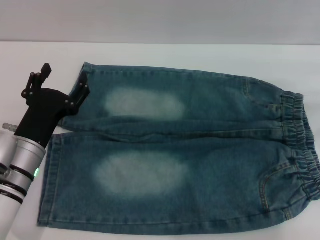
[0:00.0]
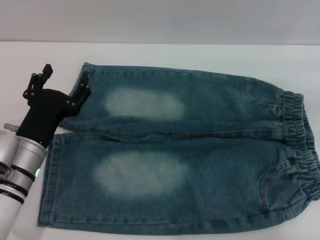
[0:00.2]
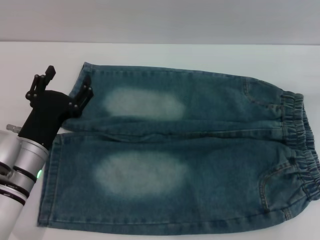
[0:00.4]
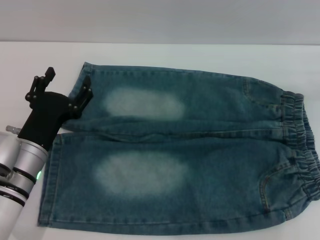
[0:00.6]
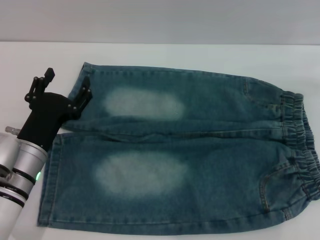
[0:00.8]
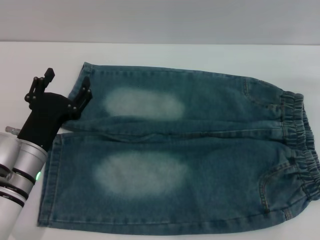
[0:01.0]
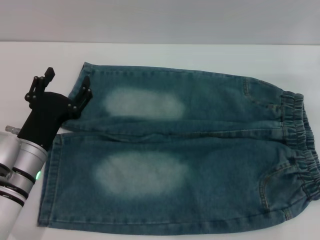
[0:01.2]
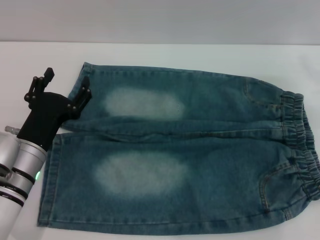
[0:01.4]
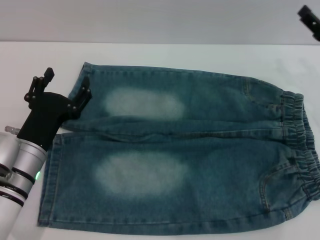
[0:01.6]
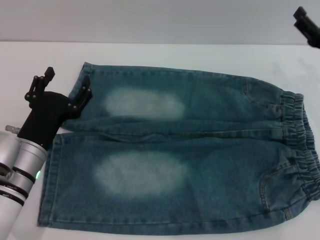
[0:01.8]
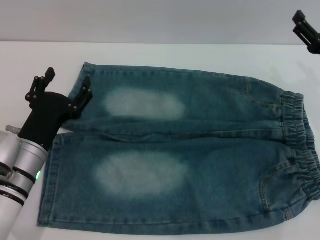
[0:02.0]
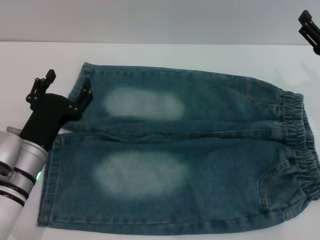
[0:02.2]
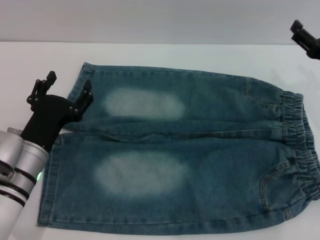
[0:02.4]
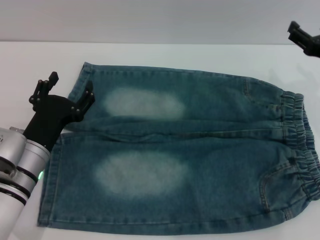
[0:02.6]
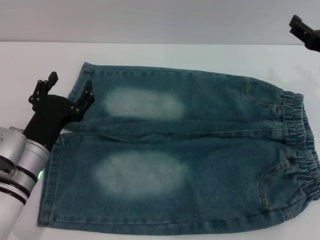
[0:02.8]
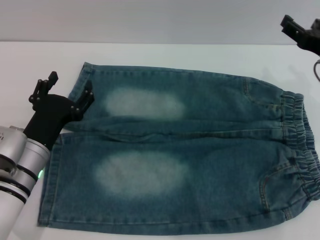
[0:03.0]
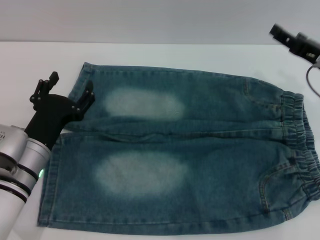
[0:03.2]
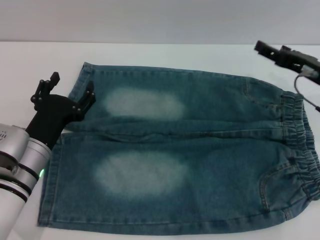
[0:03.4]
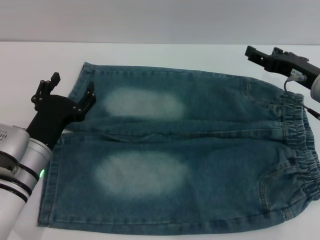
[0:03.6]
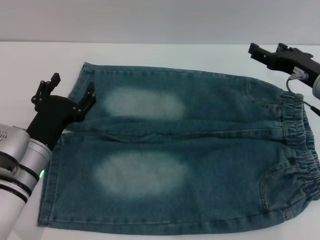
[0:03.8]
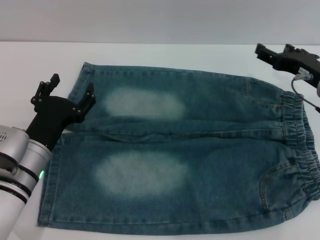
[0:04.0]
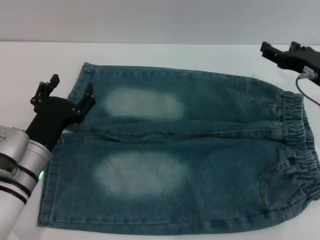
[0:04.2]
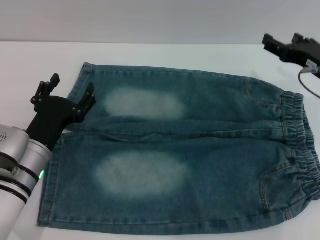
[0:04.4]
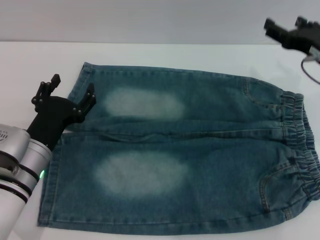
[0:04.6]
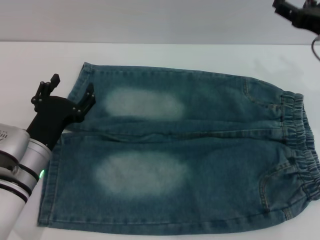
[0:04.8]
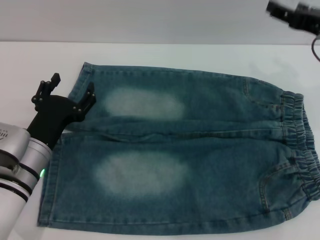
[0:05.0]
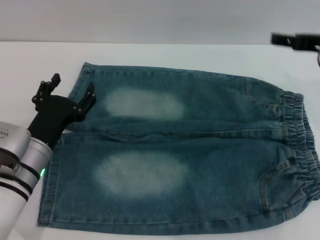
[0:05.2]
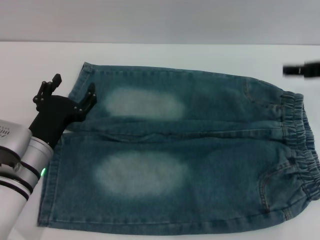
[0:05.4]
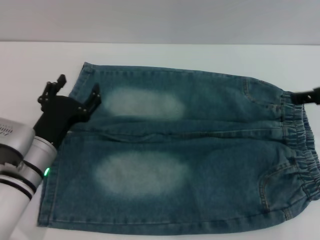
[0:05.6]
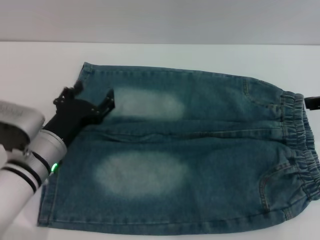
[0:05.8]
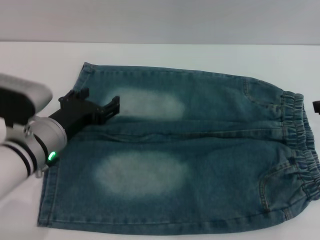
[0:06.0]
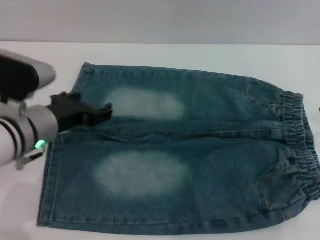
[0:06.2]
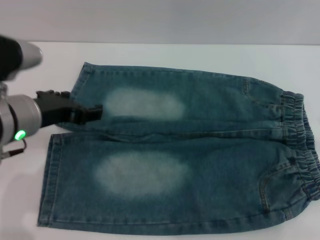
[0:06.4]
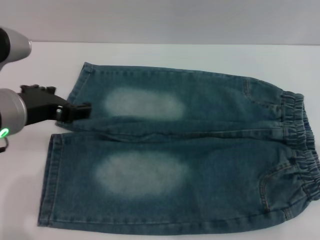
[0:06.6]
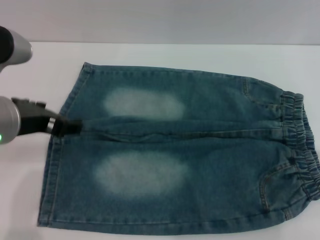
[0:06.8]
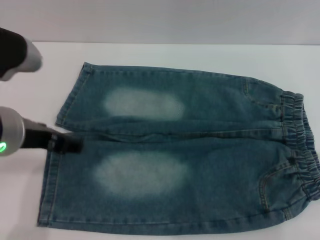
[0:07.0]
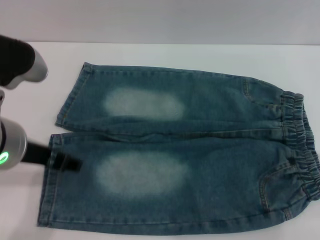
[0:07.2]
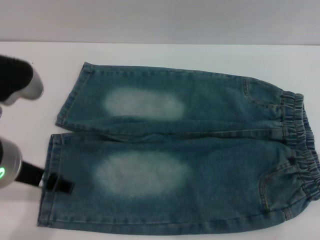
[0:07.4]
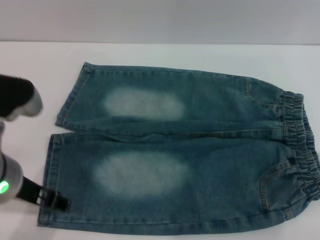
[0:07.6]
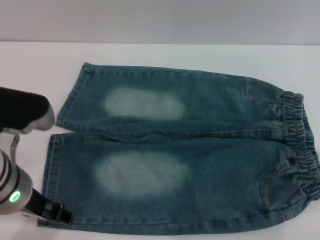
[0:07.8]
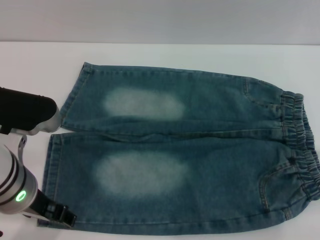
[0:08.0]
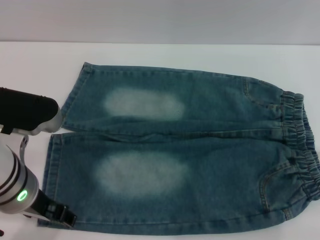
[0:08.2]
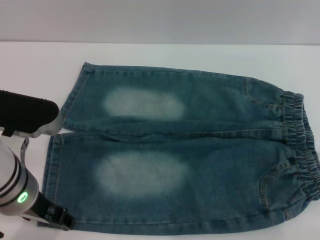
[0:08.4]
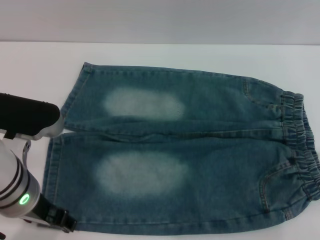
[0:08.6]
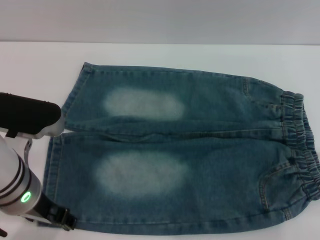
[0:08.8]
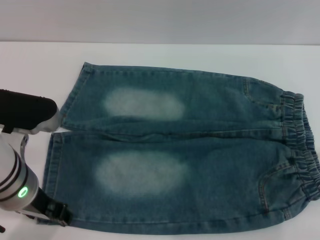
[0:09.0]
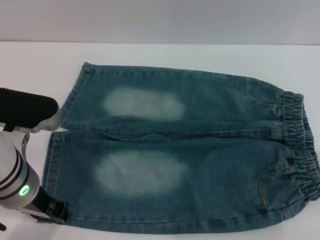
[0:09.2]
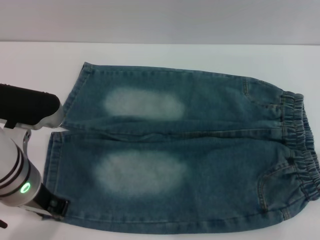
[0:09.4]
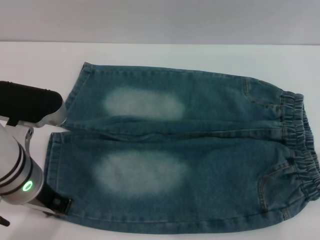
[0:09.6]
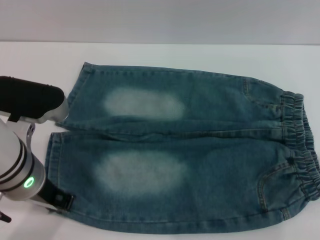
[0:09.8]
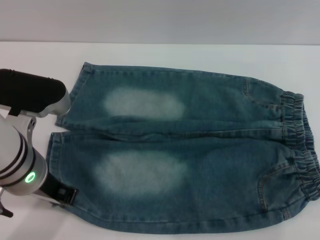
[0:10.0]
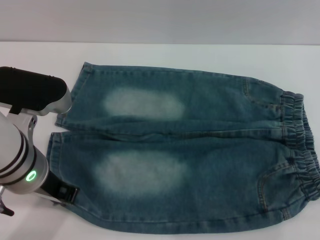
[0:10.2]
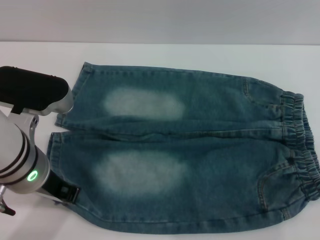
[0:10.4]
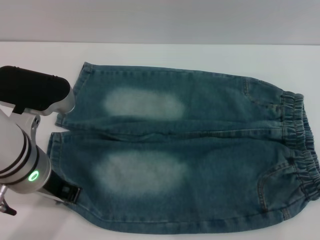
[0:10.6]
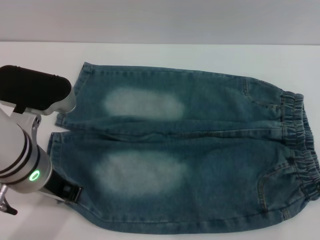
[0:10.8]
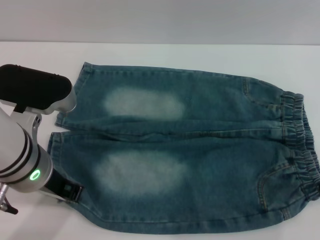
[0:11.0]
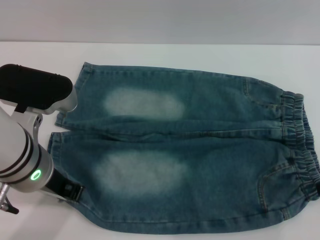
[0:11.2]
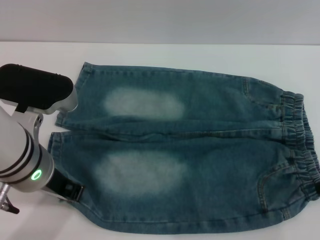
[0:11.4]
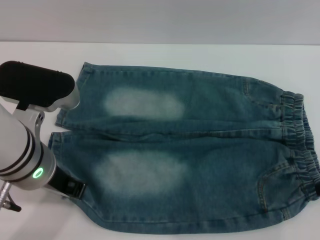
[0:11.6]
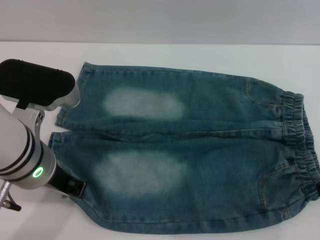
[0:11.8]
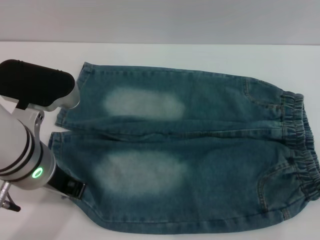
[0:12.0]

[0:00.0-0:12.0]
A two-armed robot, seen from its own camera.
0:01.6 to 0:03.0: The right gripper ends up approximately 5 cm from where it was.
0:03.0 to 0:04.4: The grippers make only small movements.
0:04.4 to 0:06.0: The left gripper shifts some 5 cm upward, while the right gripper is displaced upward and backward by some 15 cm.
0:06.0 to 0:07.6: The left gripper goes some 10 cm upward and backward.
0:07.6 to 0:09.0: The grippers stay close to where they were, moving slightly.
0:09.0 to 0:10.4: The left gripper closes its fingers.

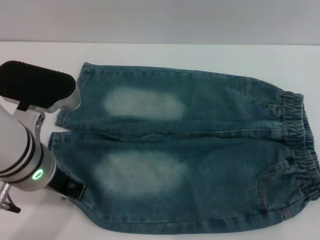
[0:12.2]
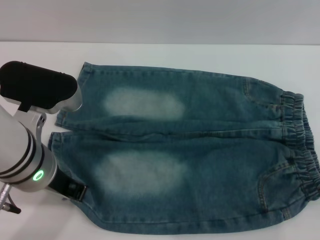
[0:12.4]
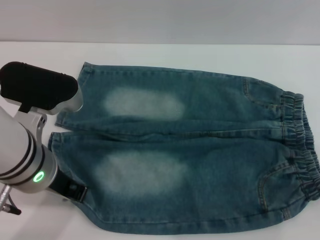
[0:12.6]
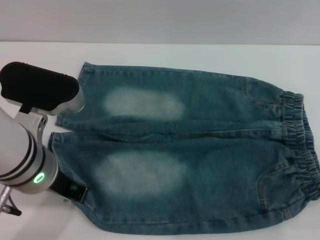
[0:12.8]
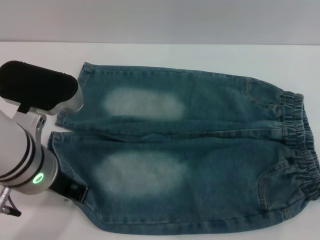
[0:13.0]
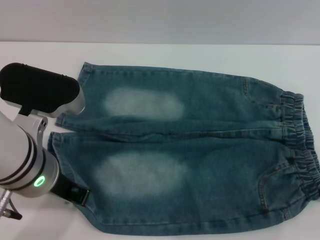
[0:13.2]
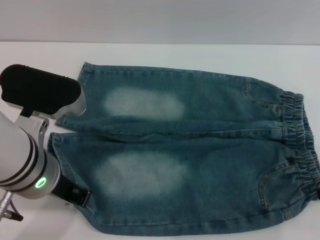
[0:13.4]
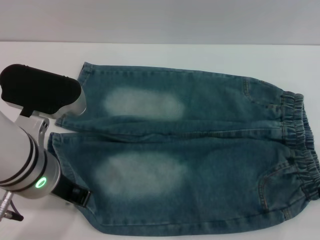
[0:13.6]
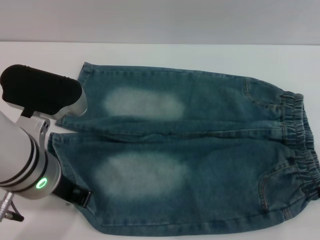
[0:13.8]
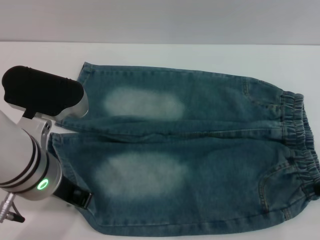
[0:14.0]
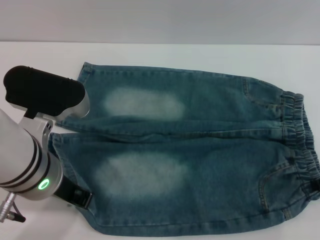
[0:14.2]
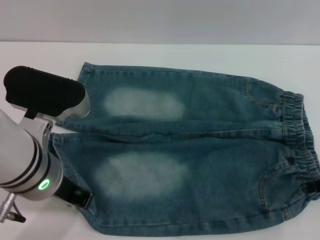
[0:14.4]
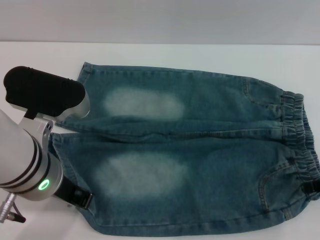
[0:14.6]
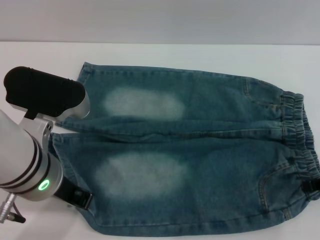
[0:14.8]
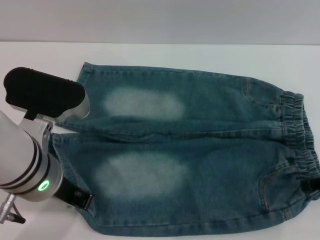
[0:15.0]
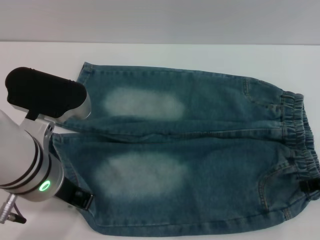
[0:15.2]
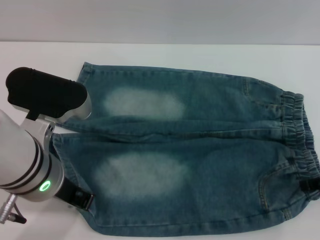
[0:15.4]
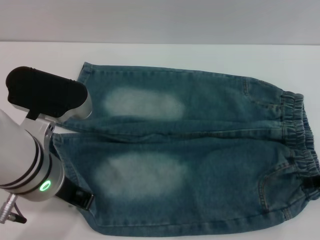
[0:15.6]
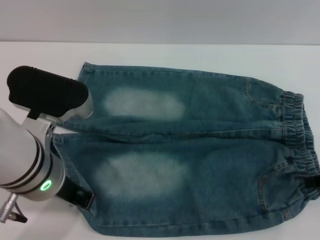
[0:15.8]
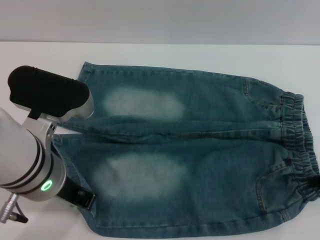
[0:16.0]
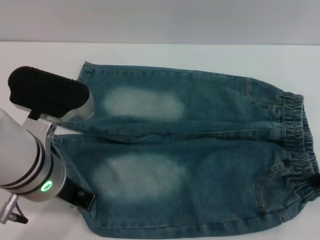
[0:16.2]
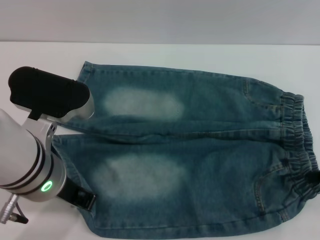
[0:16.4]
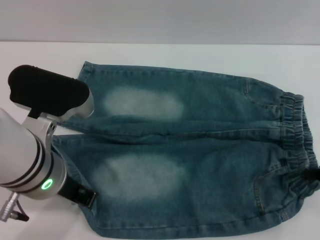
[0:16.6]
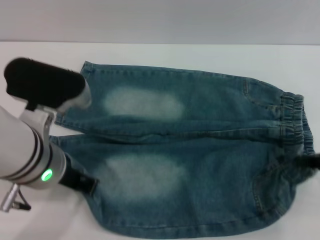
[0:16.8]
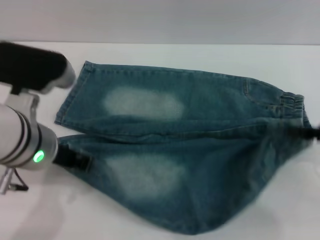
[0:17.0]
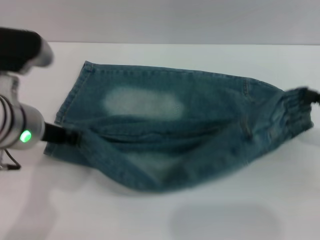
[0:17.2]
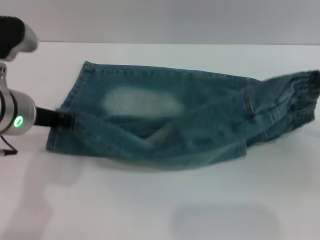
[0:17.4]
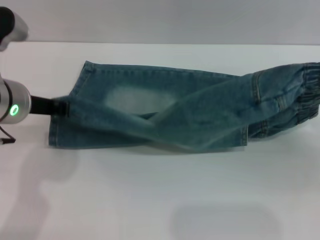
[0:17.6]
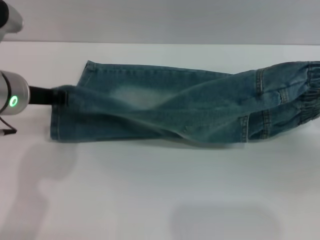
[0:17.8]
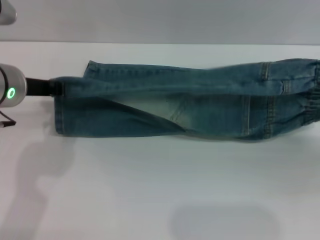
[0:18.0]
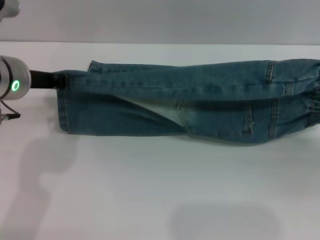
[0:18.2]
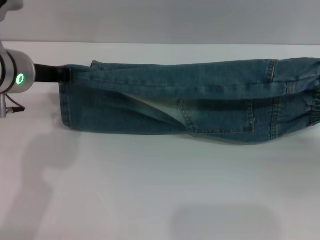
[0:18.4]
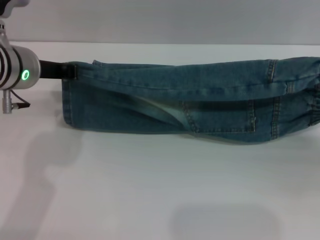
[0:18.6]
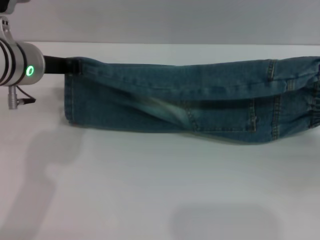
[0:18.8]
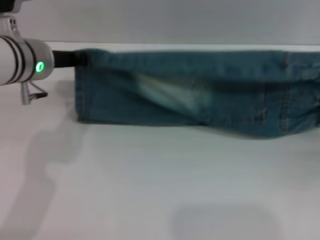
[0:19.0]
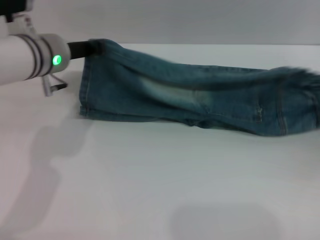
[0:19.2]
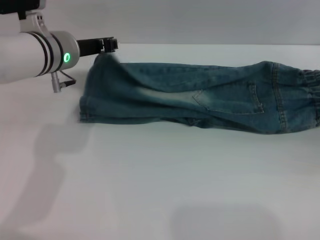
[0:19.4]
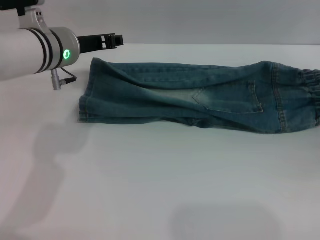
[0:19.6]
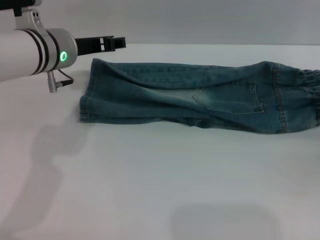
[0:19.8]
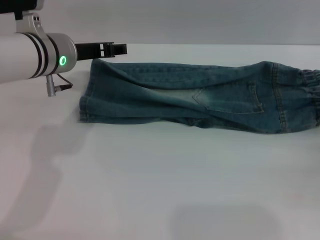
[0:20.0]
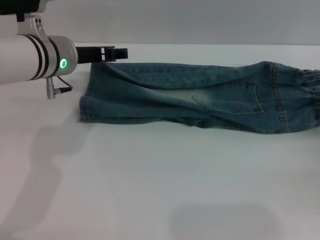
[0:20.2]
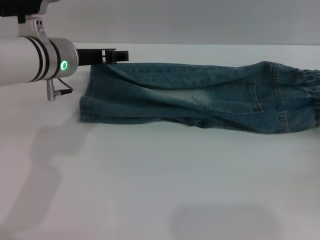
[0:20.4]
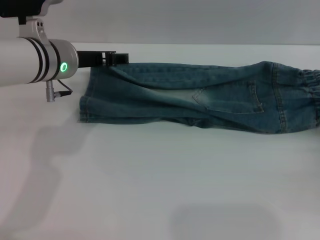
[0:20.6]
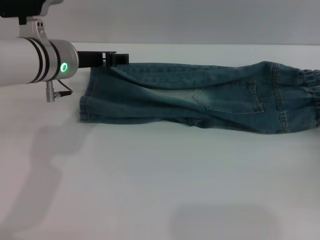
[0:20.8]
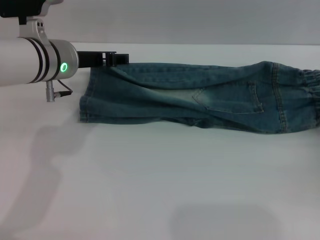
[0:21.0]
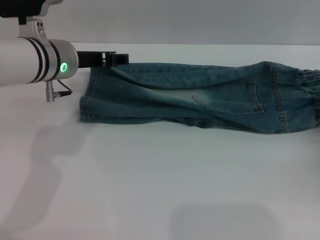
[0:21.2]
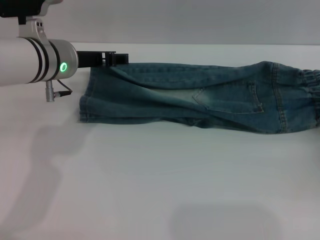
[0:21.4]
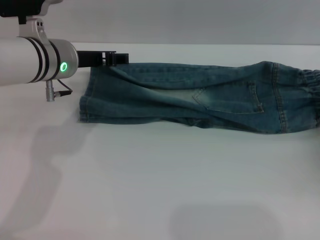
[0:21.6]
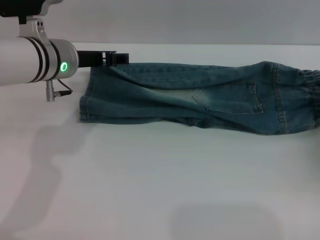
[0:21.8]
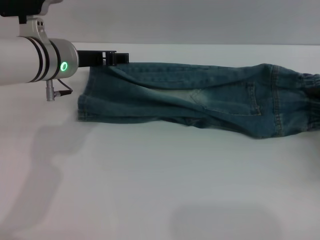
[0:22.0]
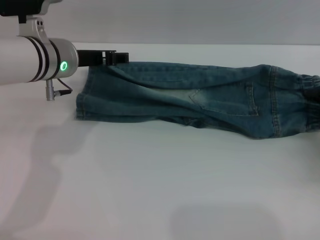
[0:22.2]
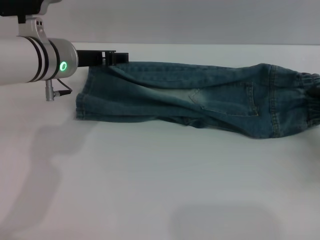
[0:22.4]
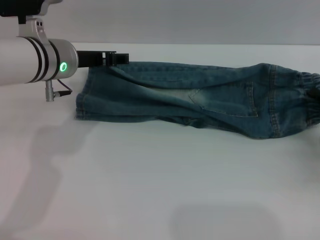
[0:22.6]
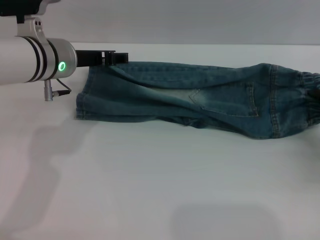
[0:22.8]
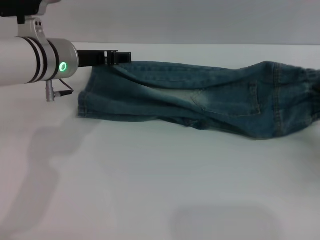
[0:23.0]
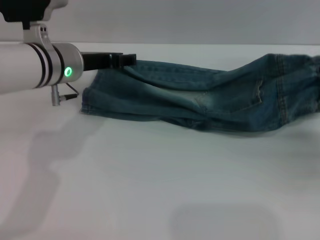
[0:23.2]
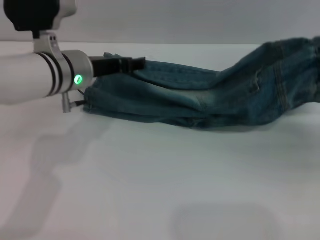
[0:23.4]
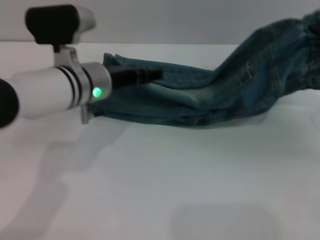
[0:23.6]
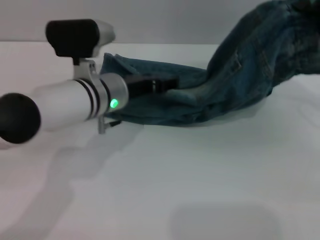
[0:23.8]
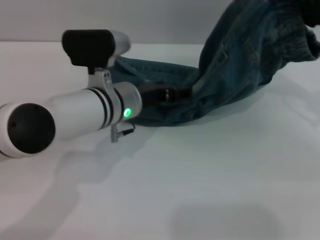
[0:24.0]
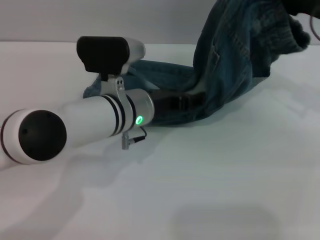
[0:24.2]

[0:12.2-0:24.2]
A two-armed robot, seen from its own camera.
Step, 0:12.2 to 0:19.4: Fold the bottom of the pants upward with both grippers.
0:12.2 to 0:13.8: The right gripper opens up.
0:13.8 to 0:15.2: The grippers make only small movements.
0:15.2 to 0:16.6: The right gripper closes.
0:16.6 to 0:18.2: The left gripper is displaced forward and to the left by roughly 10 cm; the right gripper is displaced to the right by roughly 5 cm.
0:18.2 to 0:19.8: The left gripper goes about 5 cm forward, and opens its fingers. The right gripper opens.
0:19.8 to 0:21.2: The grippers make only small movements.
0:21.2 to 0:22.6: The right gripper closes its fingers.
0:22.6 to 0:24.2: The right gripper goes approximately 20 cm upward, forward and to the left; the left gripper travels to the right and downward by about 10 cm.
